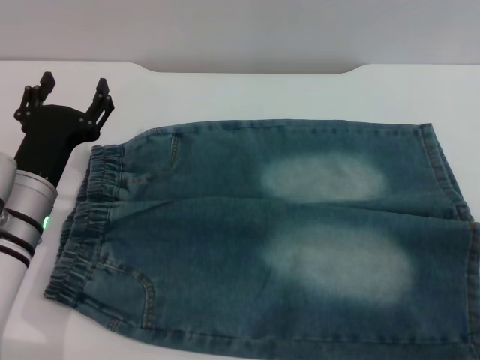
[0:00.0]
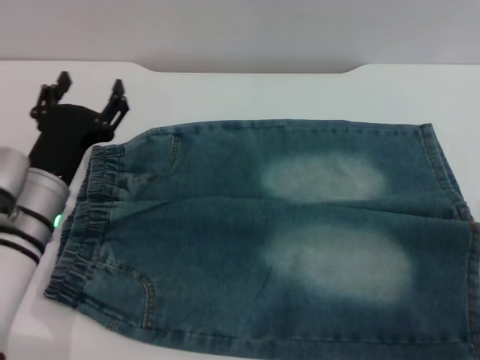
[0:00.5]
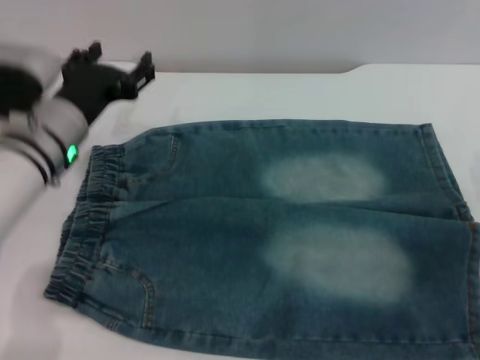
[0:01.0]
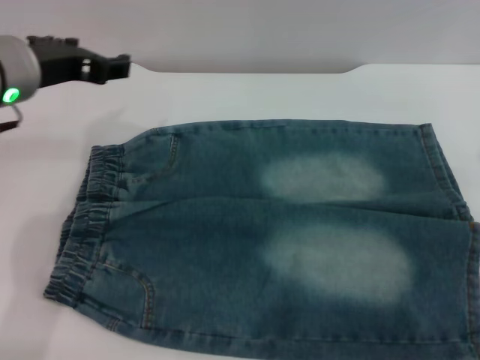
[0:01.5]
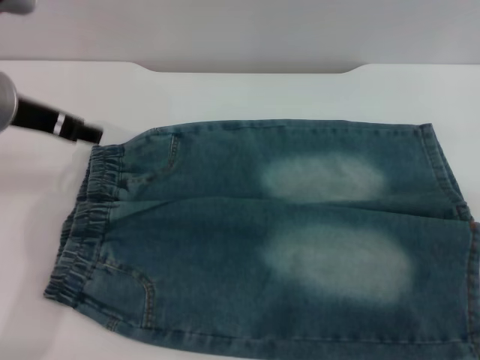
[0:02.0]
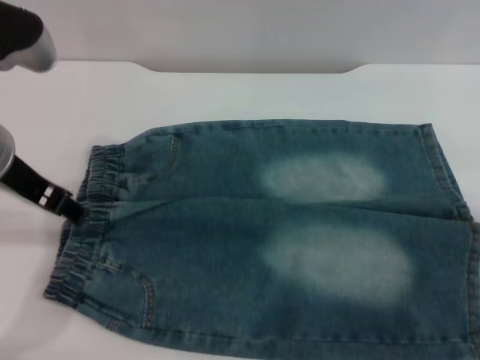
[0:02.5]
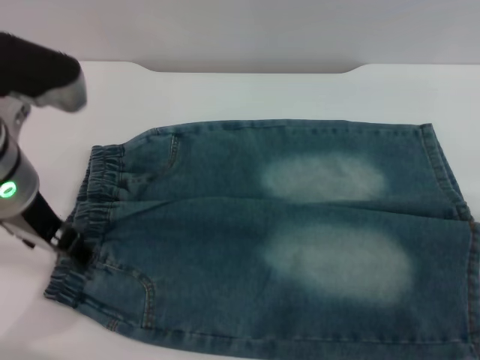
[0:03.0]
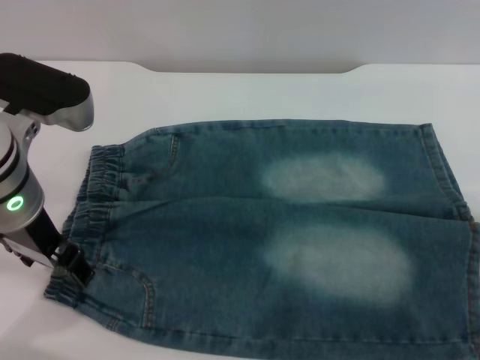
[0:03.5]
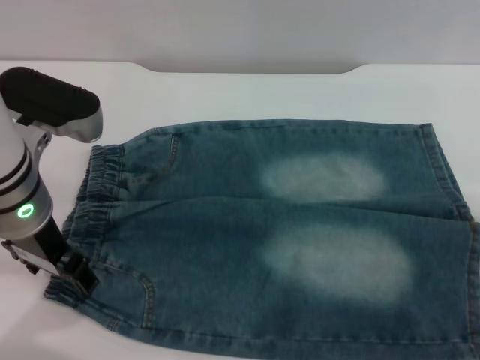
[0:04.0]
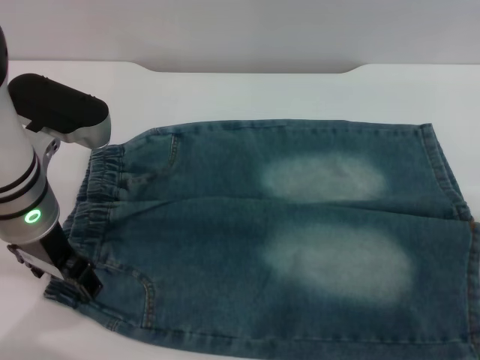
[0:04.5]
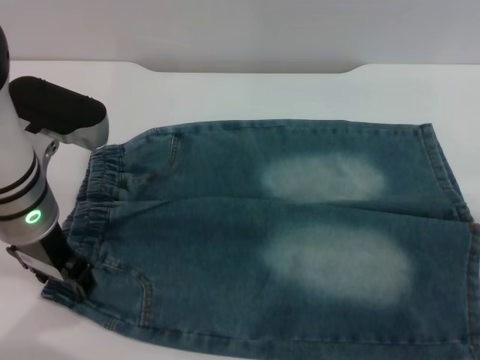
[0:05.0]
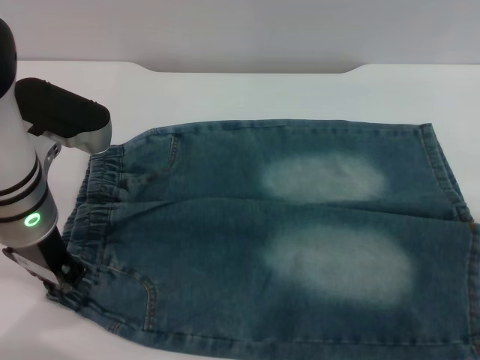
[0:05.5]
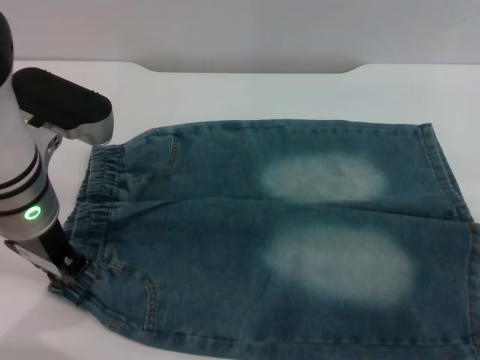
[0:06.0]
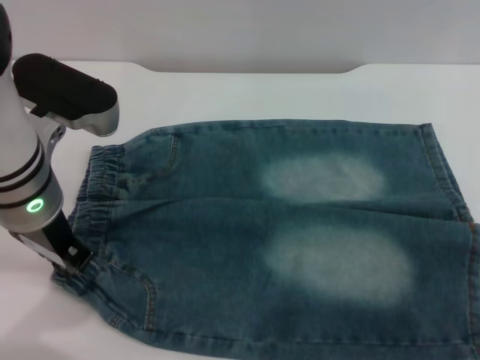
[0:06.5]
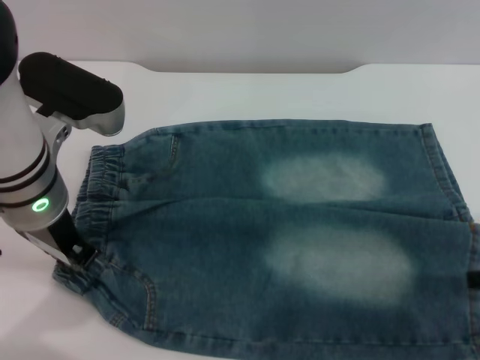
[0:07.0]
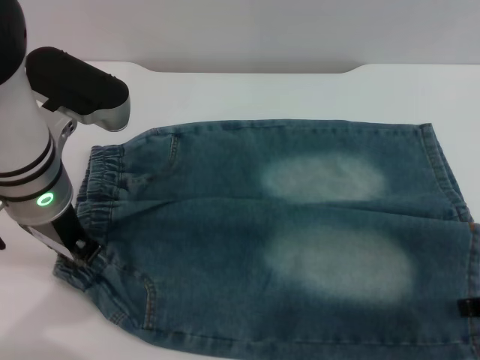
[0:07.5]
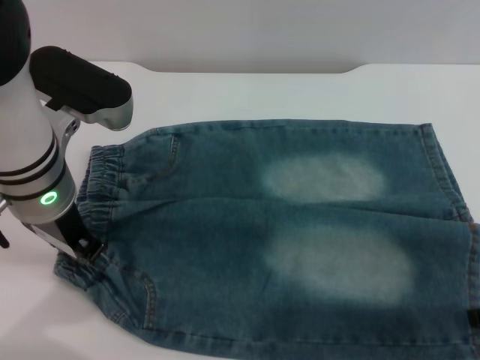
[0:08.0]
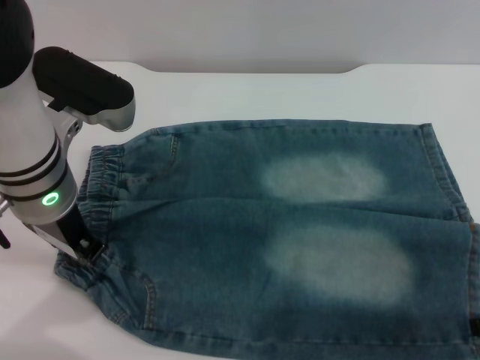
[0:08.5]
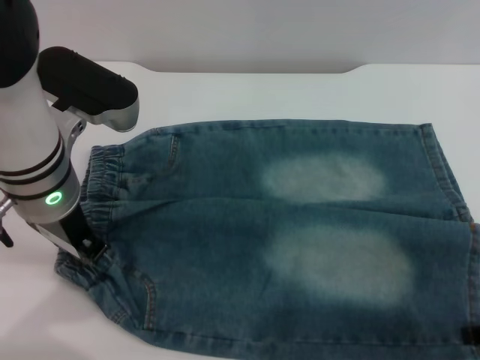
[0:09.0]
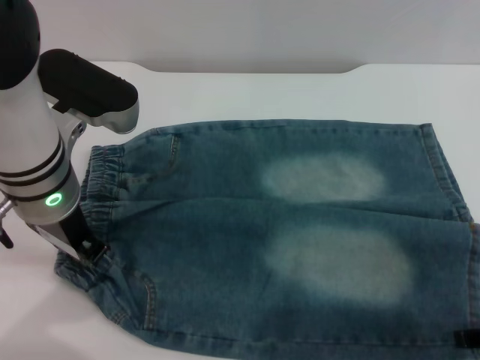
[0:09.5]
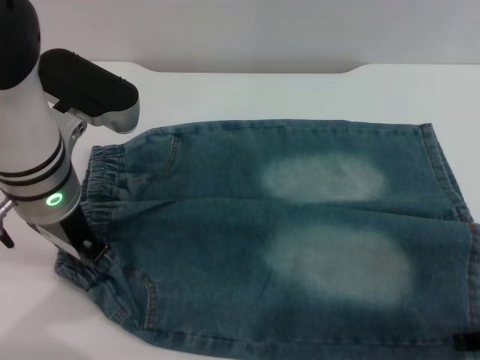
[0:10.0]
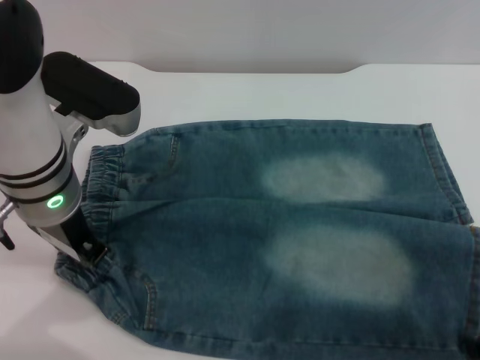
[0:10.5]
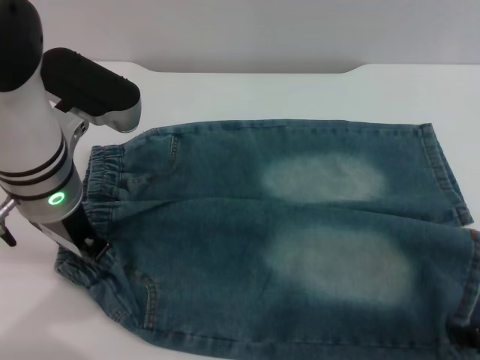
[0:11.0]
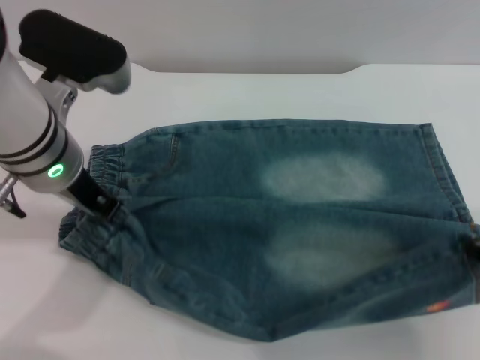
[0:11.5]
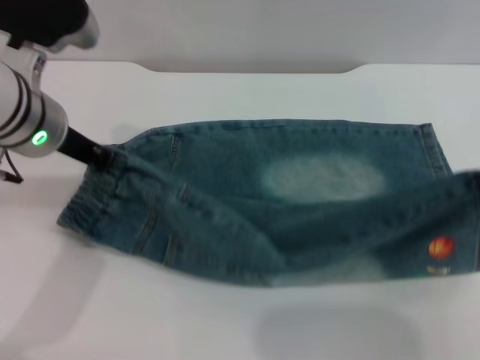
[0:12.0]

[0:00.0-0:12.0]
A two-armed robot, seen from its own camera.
0:00.0 to 0:02.0: The left gripper shifts about 15 cm upward.
0:02.0 to 0:04.0: The left gripper goes some 5 cm downward.
0:04.0 to 0:06.0: The left gripper closes its fingers.
0:08.0 to 0:10.0: The grippers stay close to where they were, moving slightly.
0:10.0 to 0:12.0: The right gripper heads upward, covering approximately 5 cm, and closes.

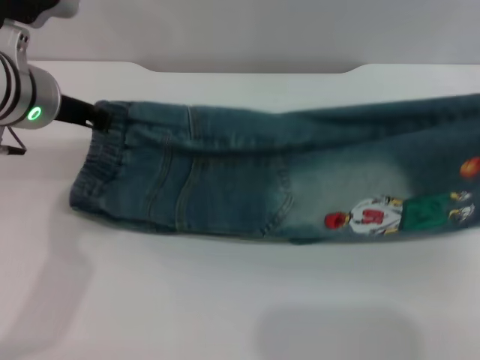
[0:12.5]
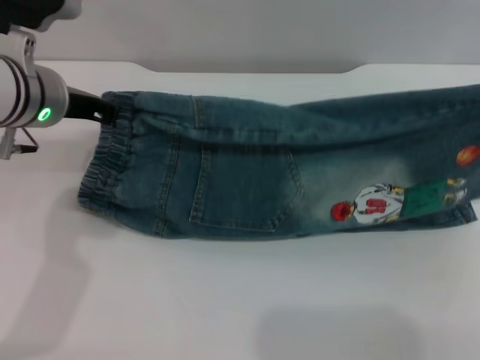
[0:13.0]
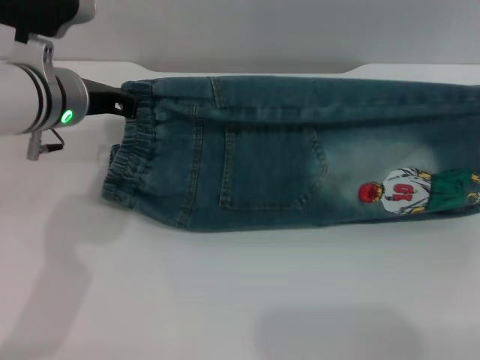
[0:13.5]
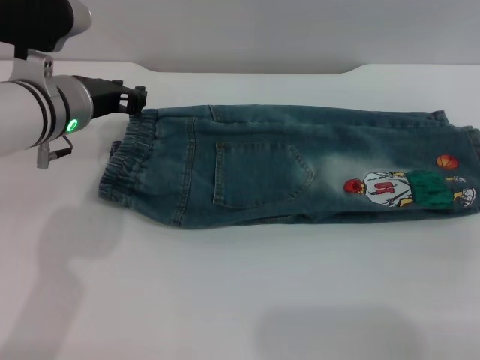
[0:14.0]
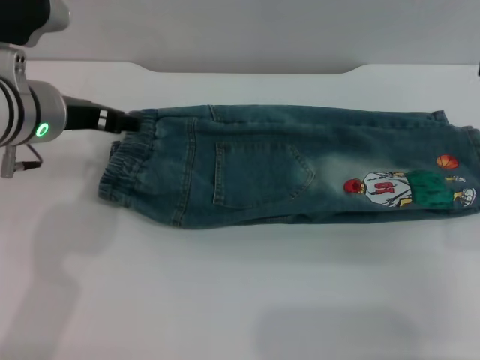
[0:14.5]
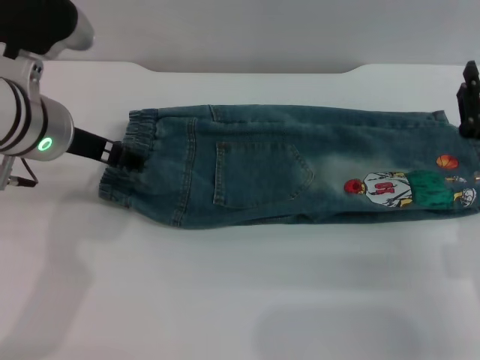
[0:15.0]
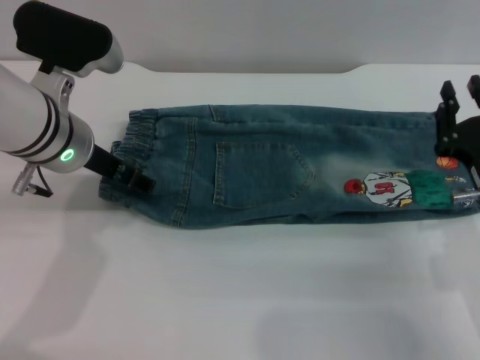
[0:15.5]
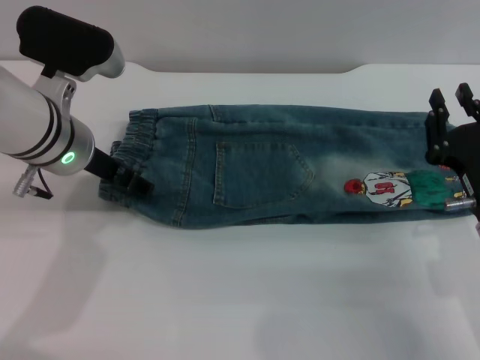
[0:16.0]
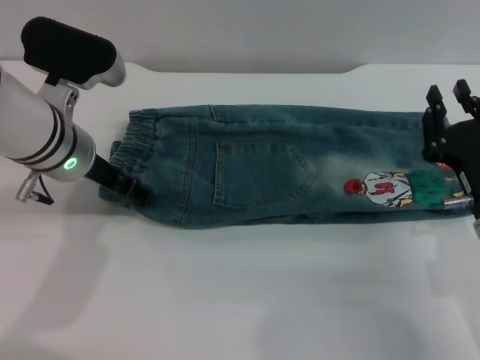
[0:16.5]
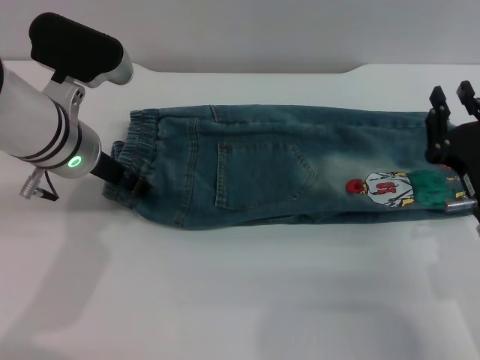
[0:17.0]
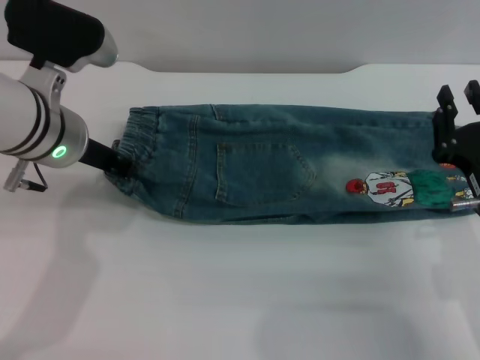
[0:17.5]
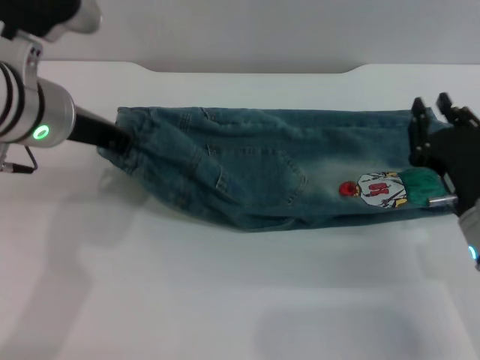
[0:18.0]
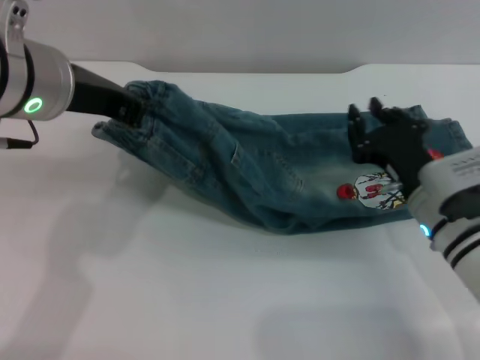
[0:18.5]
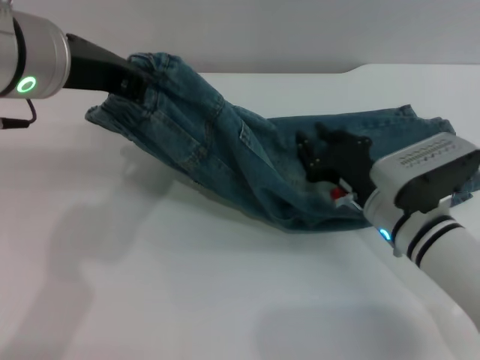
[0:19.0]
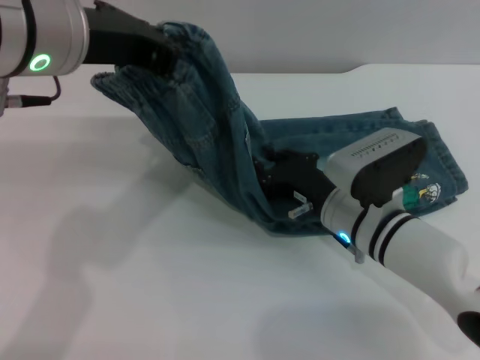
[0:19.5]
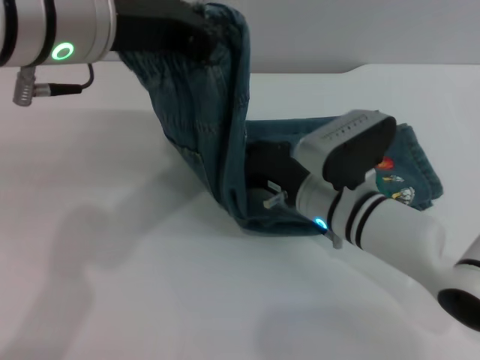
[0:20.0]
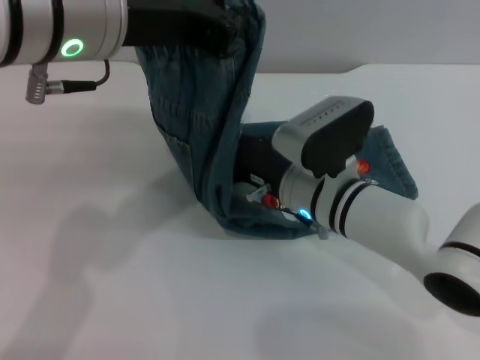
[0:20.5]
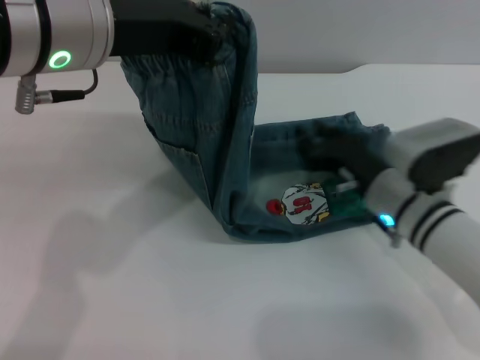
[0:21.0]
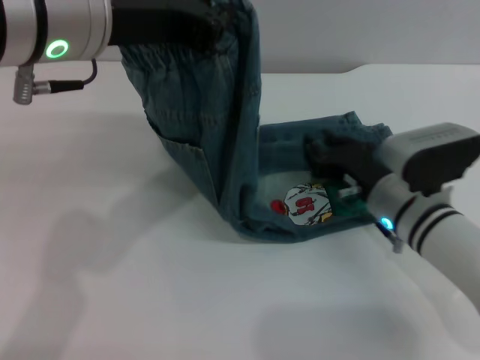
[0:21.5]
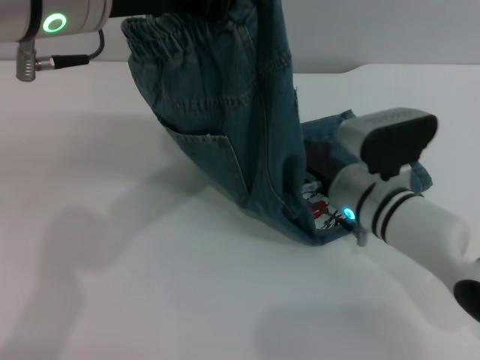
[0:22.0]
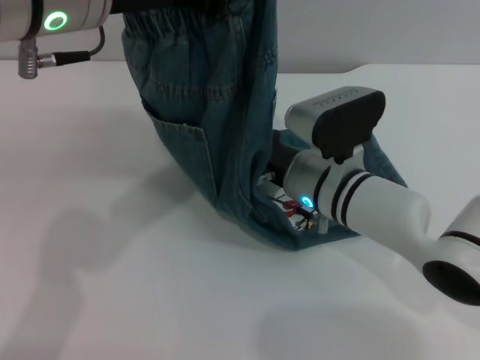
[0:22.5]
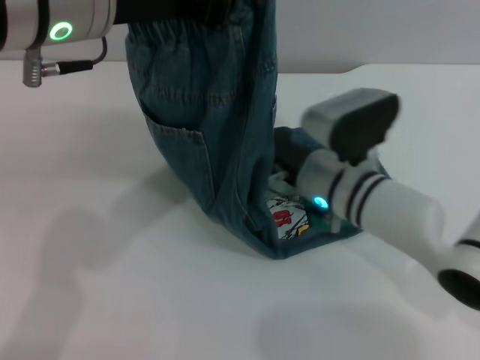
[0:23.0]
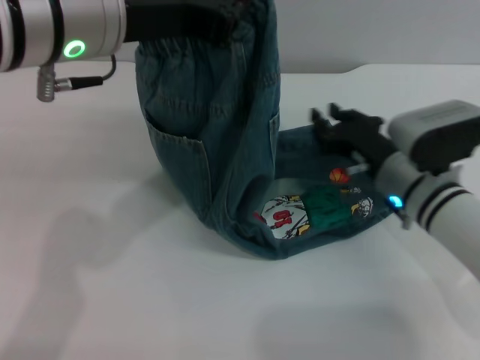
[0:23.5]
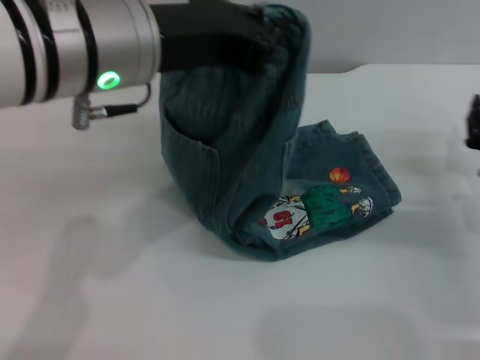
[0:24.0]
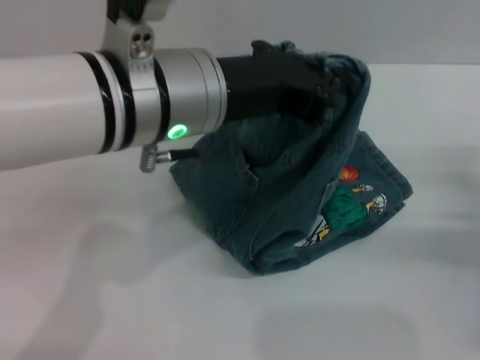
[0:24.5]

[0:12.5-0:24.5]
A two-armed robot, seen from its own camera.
Step, 0:12.5 to 0:14.5: Fold the bottom of the pants upward with both grippers.
0:12.5 to 0:14.5: The right gripper heads downward, covering approximately 10 cm, and opens its fingers; the left gripper opens its fingers.
0:14.5 to 0:16.5: The right gripper is displaced downward by about 5 cm, and closes its fingers.
0:16.5 to 0:18.5: The left gripper goes about 10 cm upward, and closes, while the right gripper goes about 5 cm forward.
0:18.5 to 0:20.5: The right gripper goes about 10 cm to the left. The left gripper heads upward, covering some 5 cm.
0:20.5 to 0:22.5: The right gripper goes to the right and returns, some 10 cm each way.
0:22.5 to 0:24.5: The right gripper shifts about 25 cm to the right, while the left gripper shifts approximately 10 cm downward and to the right.

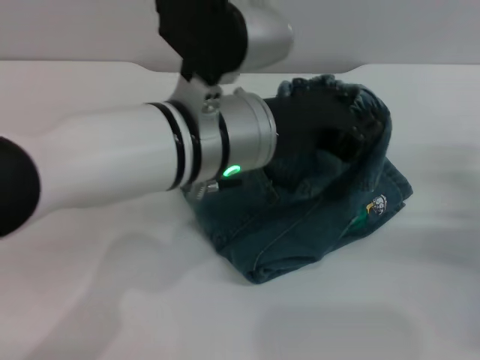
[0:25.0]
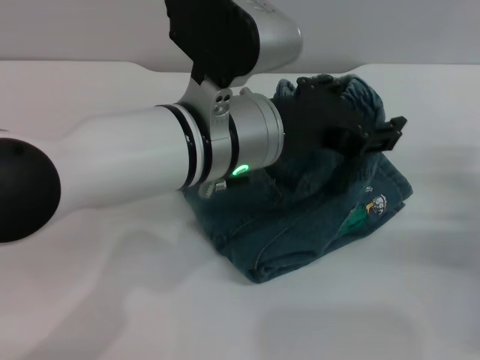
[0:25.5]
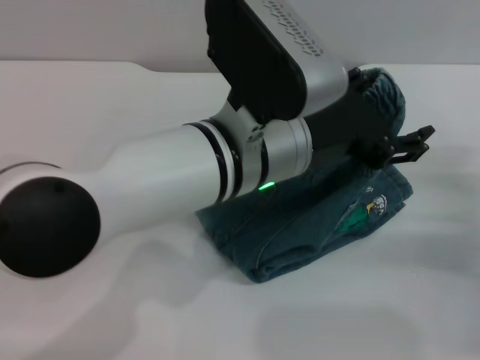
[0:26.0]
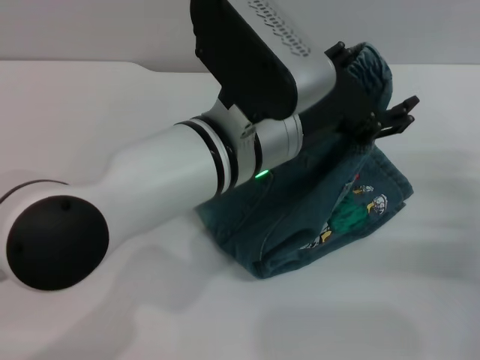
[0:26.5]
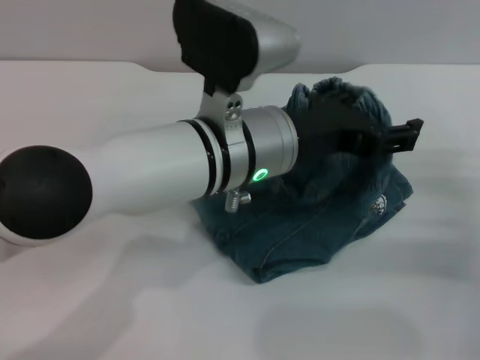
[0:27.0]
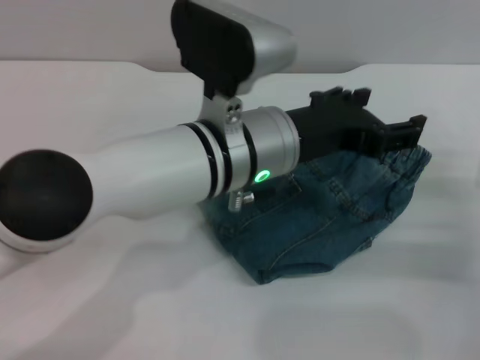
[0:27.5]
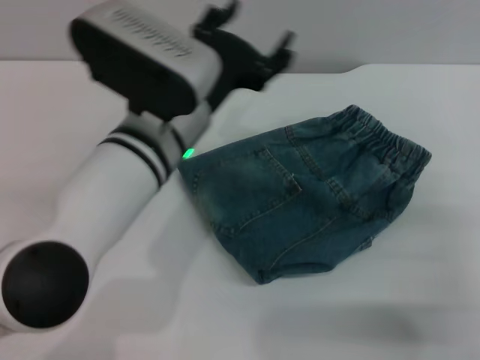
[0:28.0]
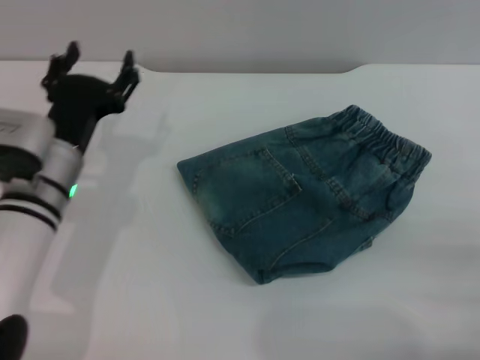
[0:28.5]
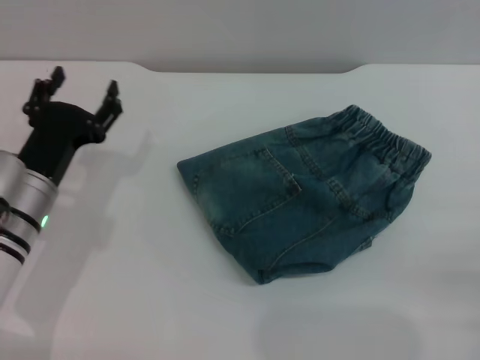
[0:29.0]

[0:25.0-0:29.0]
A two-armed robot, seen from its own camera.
Step, 0:25.0 to 0:27.5: Fold the pants from left to right with the left gripper.
0:25.0 to 0:27.0: The left gripper opens up.
0:27.0 to 0:29.0: The right gripper goes approximately 15 cm backward. The left gripper travels to the left and downward by about 25 cm.
